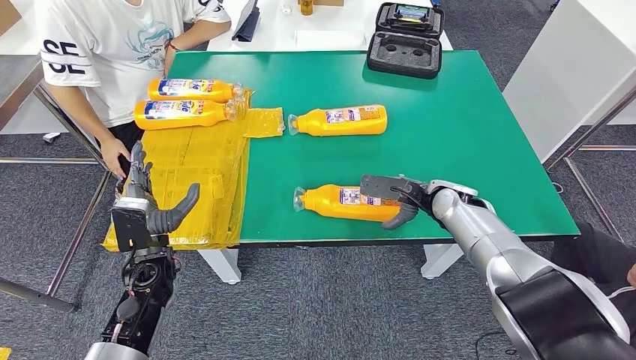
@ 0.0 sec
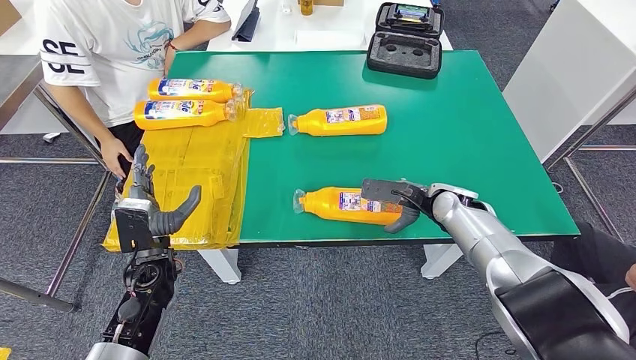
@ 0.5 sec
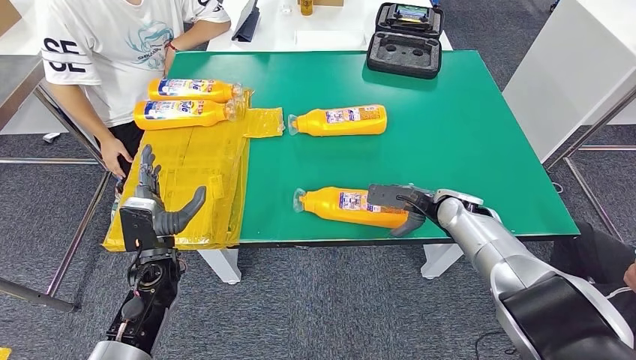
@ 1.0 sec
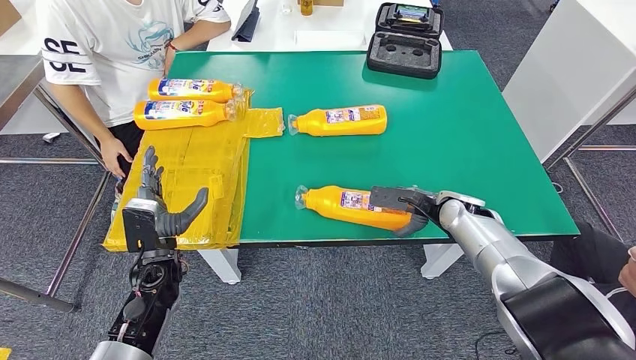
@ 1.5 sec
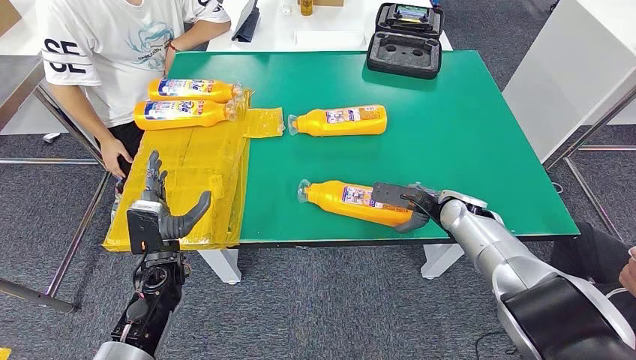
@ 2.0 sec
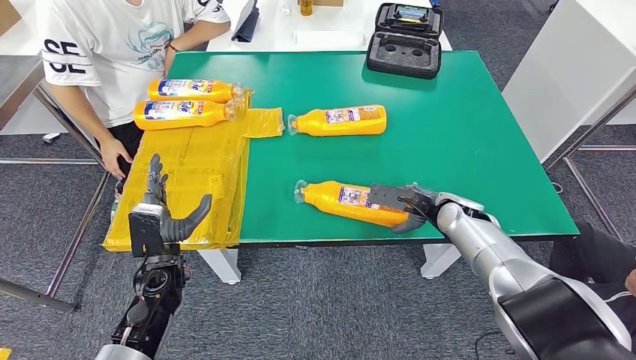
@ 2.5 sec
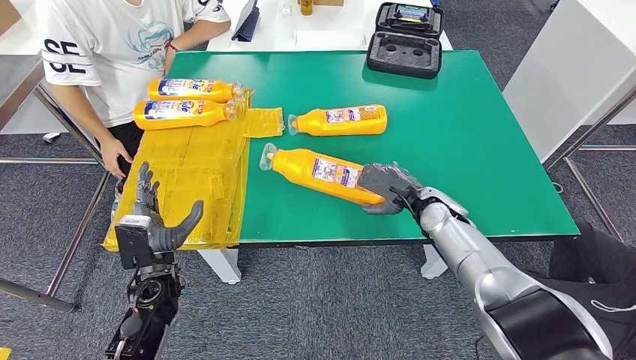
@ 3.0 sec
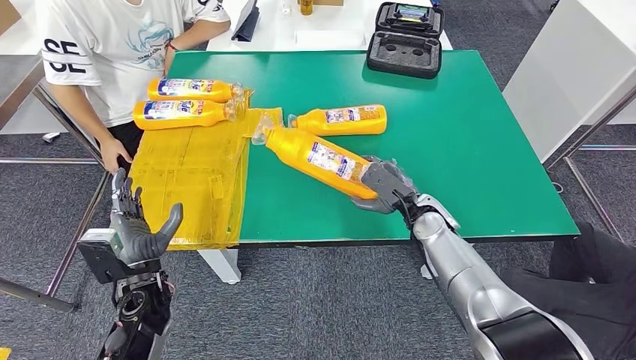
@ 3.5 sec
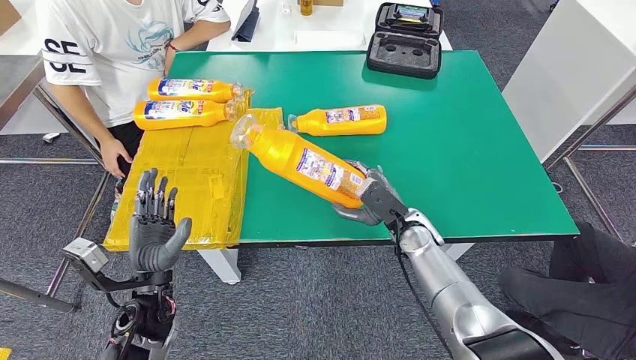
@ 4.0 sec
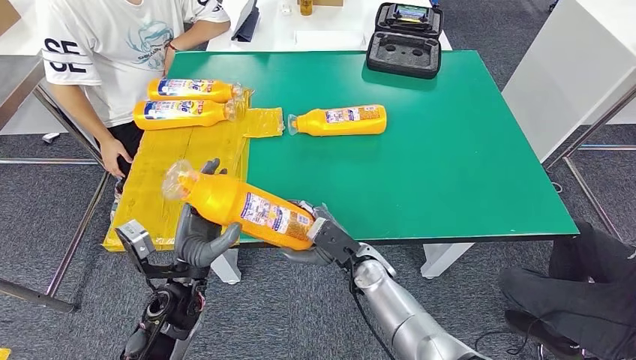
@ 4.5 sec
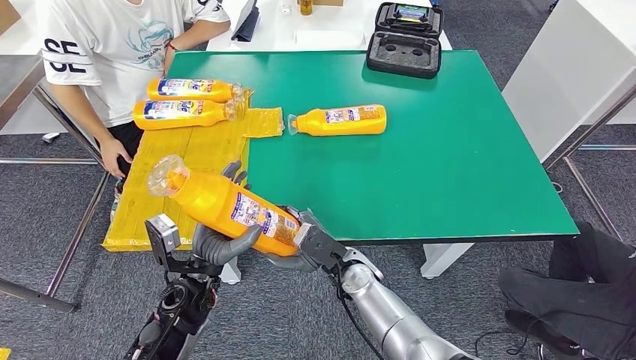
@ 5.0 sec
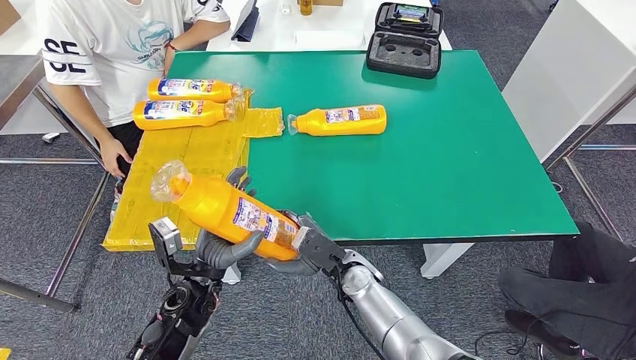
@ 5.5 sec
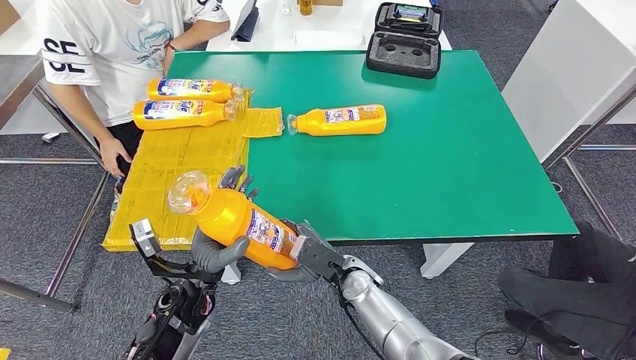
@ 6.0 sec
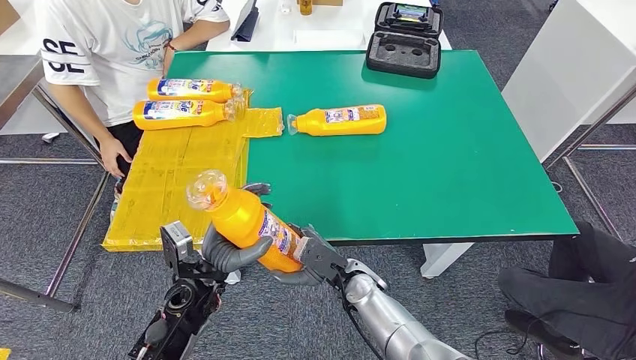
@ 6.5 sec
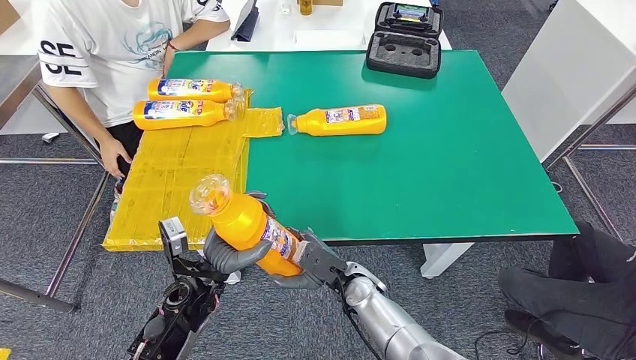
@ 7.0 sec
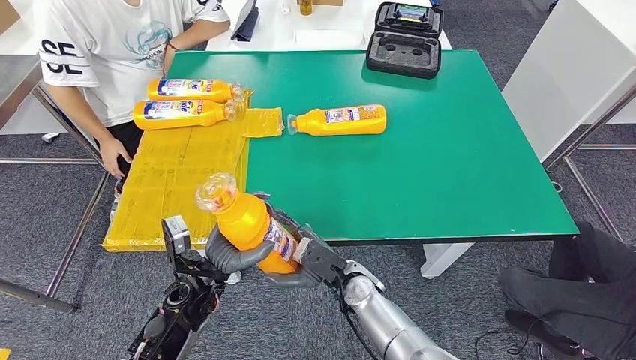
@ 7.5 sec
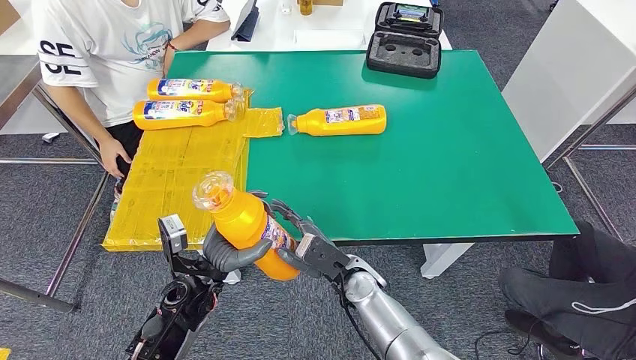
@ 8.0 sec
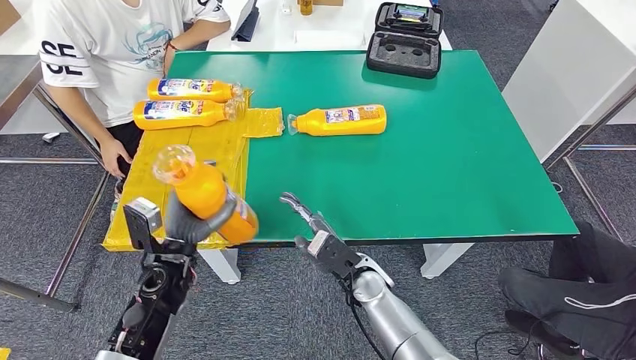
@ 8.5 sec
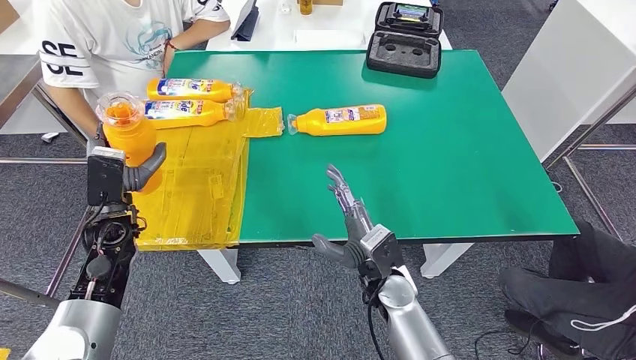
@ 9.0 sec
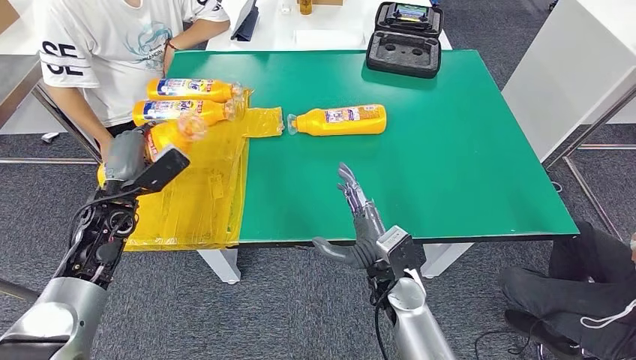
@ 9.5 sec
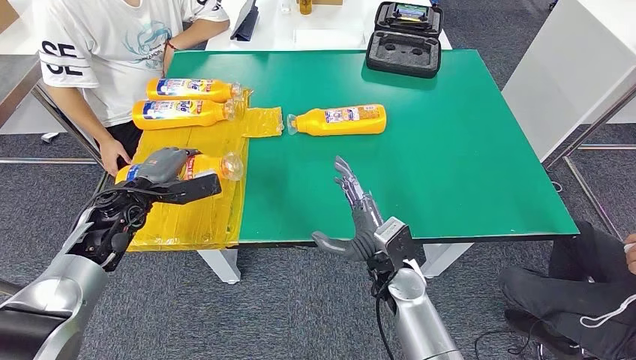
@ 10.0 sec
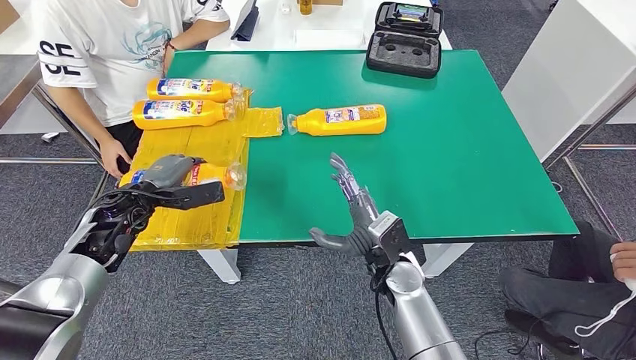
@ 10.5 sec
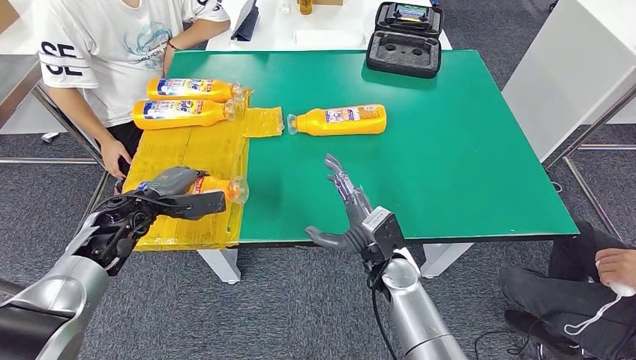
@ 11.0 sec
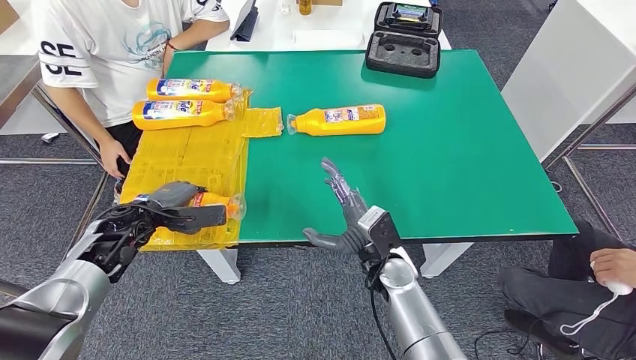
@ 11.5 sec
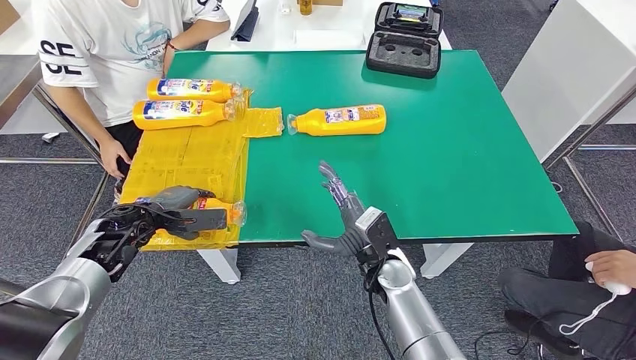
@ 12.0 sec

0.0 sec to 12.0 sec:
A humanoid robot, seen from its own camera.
Step, 0.0 sec to 5.0 sec: Pick up the fast-moving consumer goods bottle from the table.
0.0 sec to 2.0 sec: There are only small adjustments of the hands.
2.0 sec to 4.0 sec: The right hand goes about 10 cm to the left; the left hand heads backward, covering roughly 5 cm.
4.0 sec to 6.0 sec: The left hand moves to the right, about 5 cm, while the right hand shifts roughly 15 cm to the left and backward.
8.0 sec to 10.0 sec: The left hand shifts approximately 20 cm to the left, forward and upward. The right hand travels to the right by approximately 5 cm.

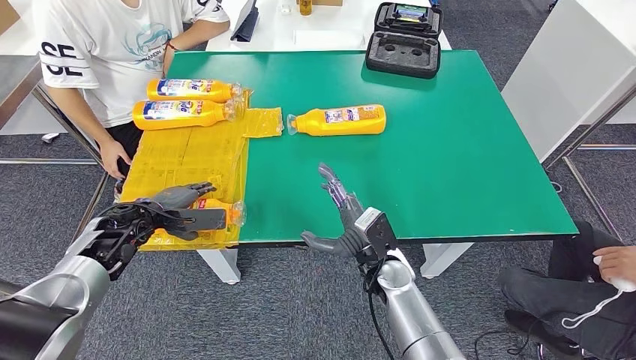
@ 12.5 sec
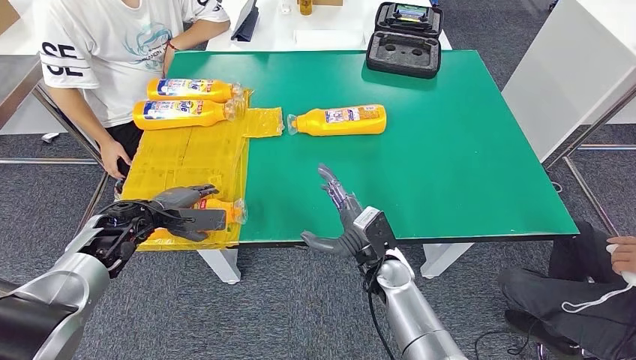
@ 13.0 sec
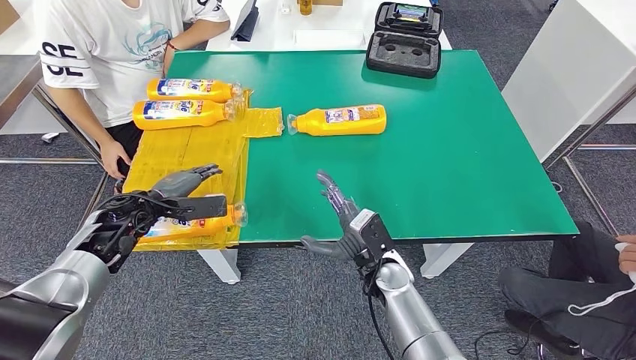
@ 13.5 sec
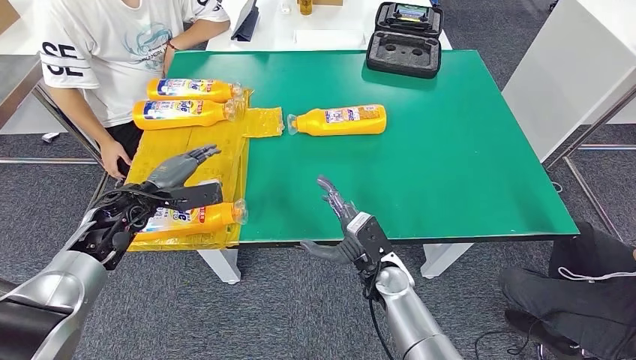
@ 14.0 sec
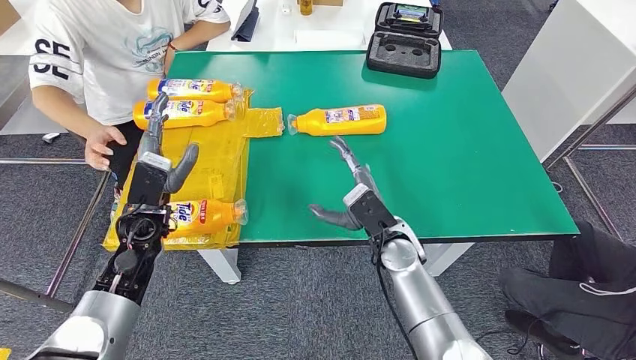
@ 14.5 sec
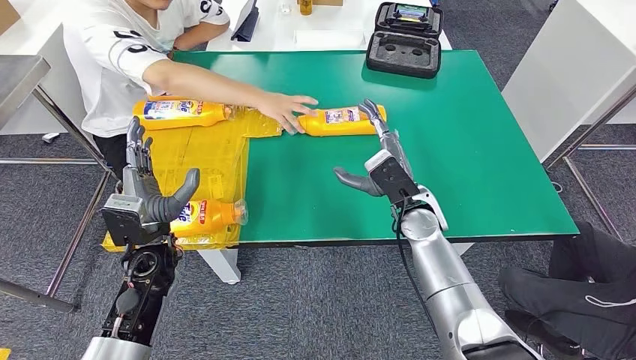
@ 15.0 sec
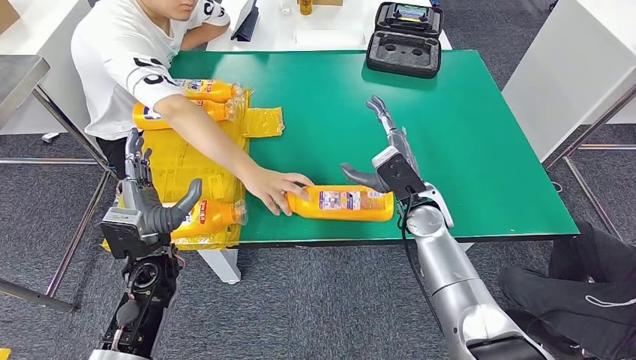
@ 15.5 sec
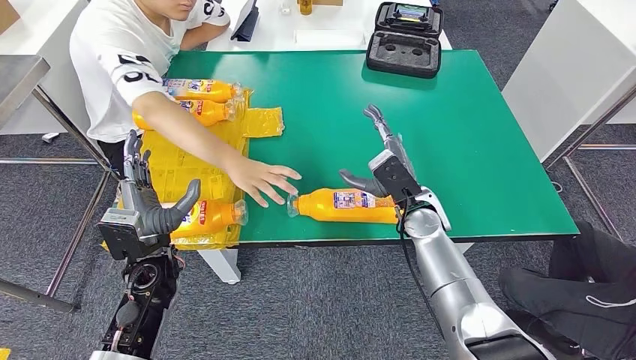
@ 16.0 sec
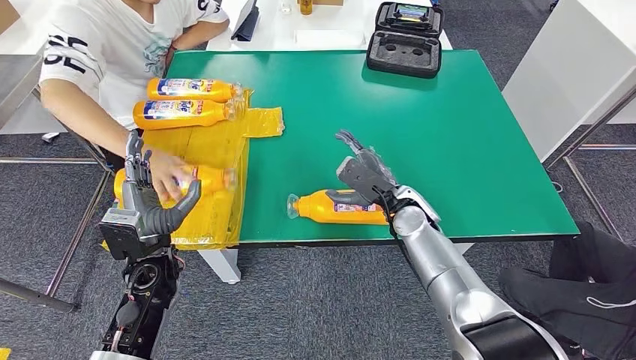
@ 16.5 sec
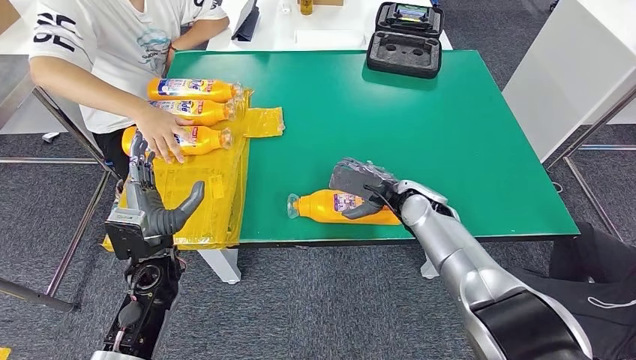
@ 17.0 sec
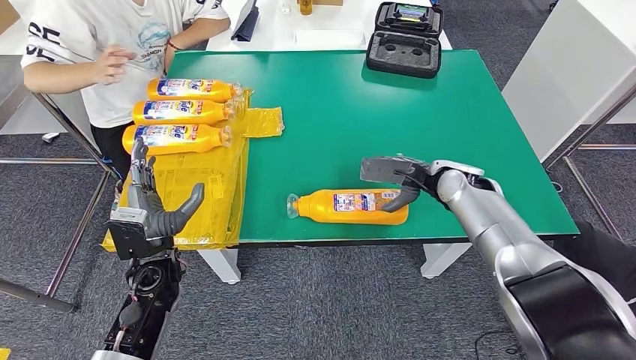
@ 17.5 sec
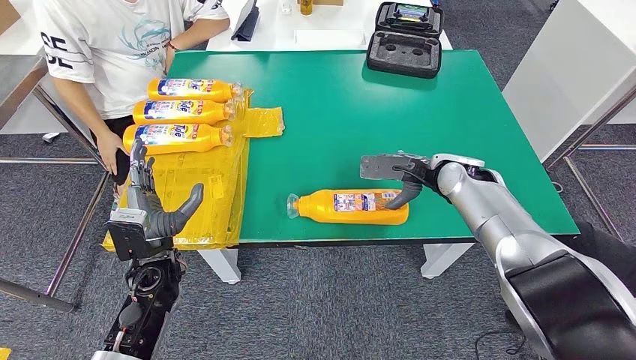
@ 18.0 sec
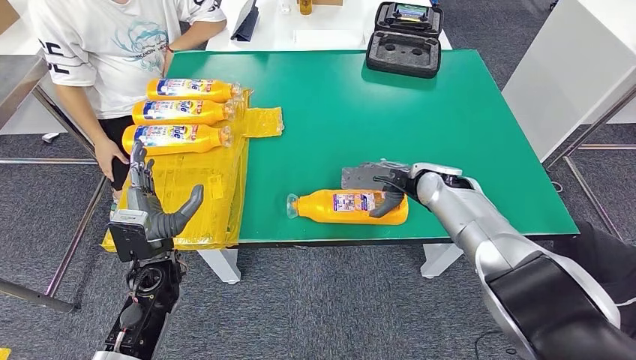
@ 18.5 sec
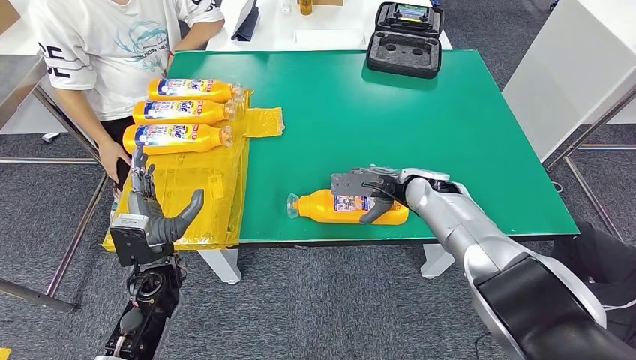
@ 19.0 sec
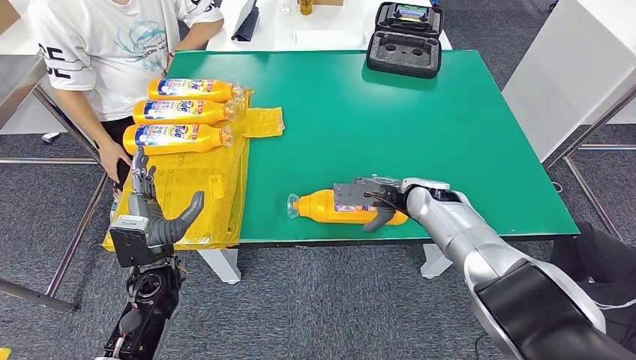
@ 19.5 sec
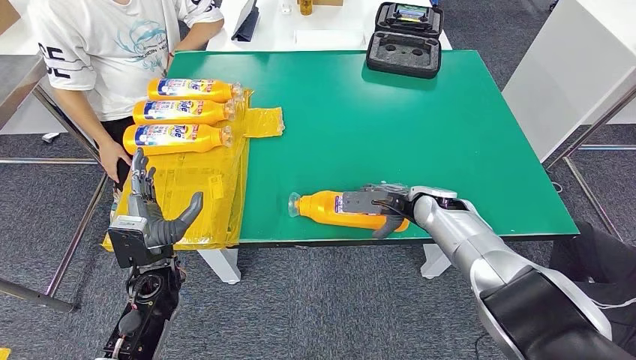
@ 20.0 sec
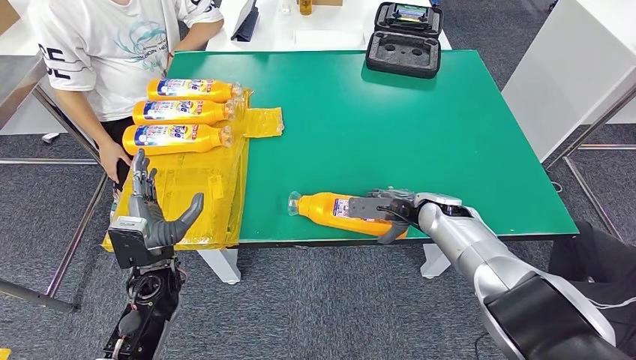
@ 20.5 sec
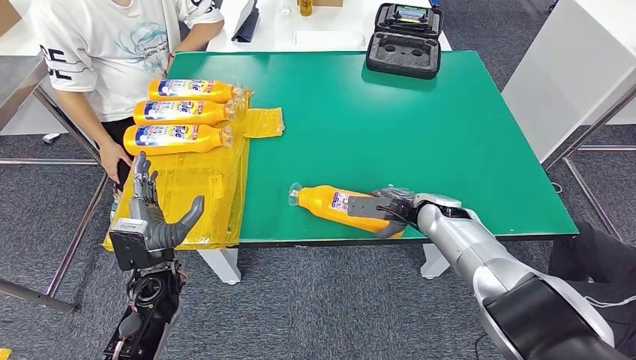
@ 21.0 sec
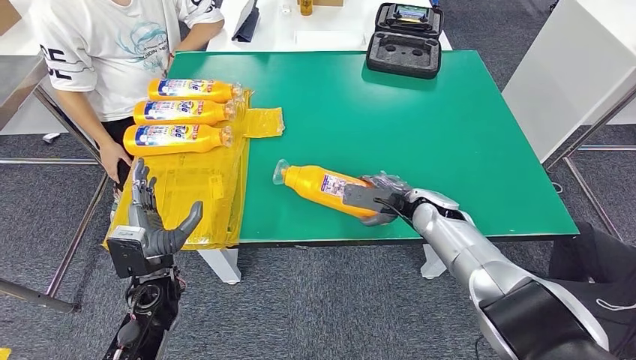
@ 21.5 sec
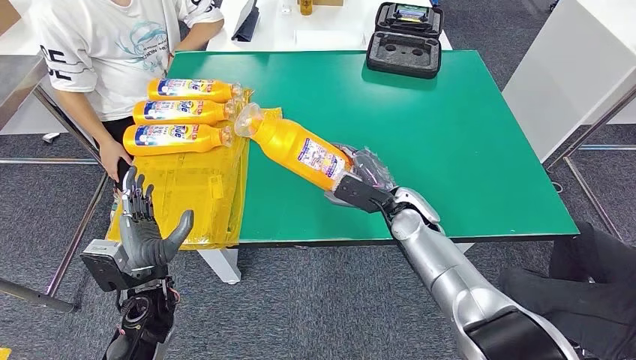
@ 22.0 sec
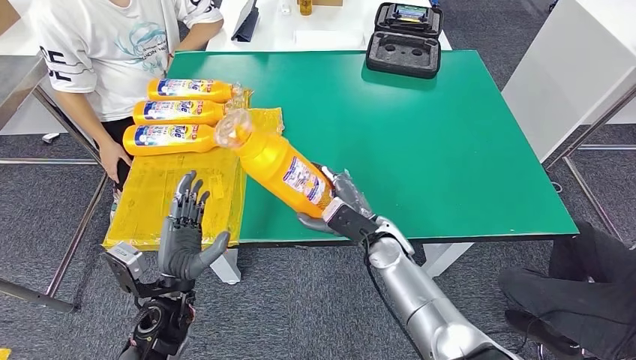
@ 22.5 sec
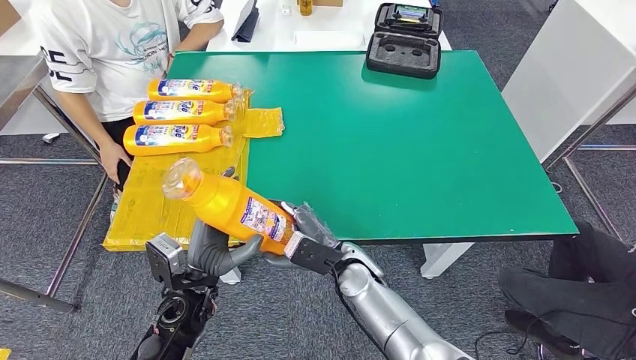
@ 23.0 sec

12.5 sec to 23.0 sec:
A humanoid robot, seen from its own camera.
Step, 12.5 sec to 22.0 sec: Pick up the fast-moving consumer goods bottle from the table.
12.5 sec to 14.5 sec: The left hand moves to the right, some 5 cm. The right hand changes place by approximately 5 cm.
16.5 sec to 19.0 sec: The right hand travels to the right and back again, some 10 cm each way.
19.0 sec to 21.0 sec: The right hand moves downward, about 5 cm.
21.0 sec to 23.0 sec: The right hand heads to the left and backward, covering approximately 20 cm, while the left hand shifts about 5 cm to the right.
